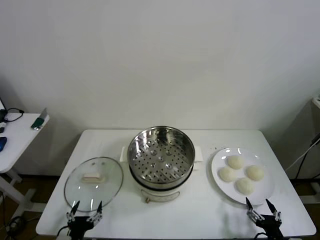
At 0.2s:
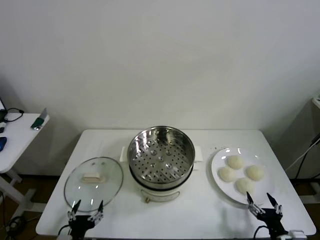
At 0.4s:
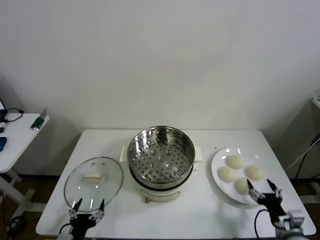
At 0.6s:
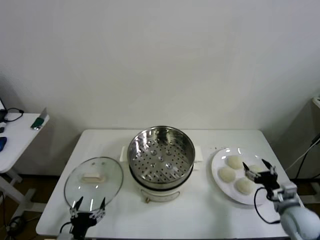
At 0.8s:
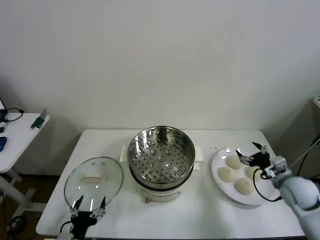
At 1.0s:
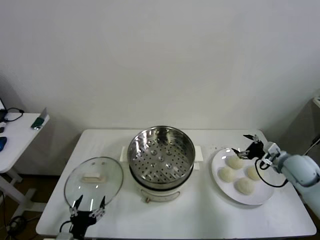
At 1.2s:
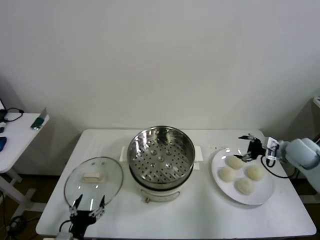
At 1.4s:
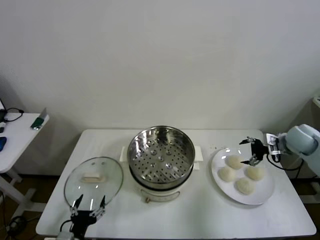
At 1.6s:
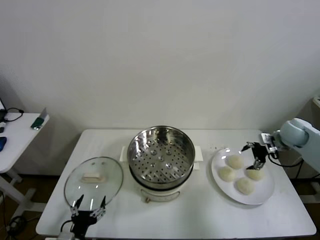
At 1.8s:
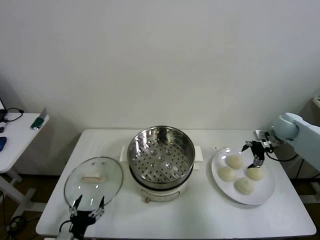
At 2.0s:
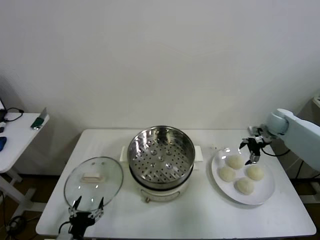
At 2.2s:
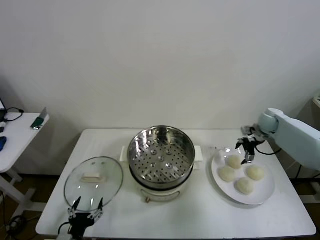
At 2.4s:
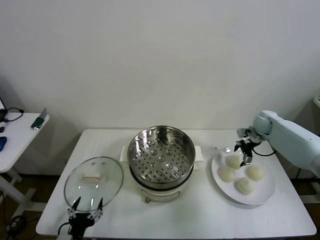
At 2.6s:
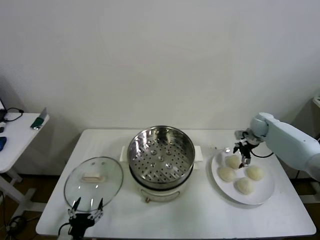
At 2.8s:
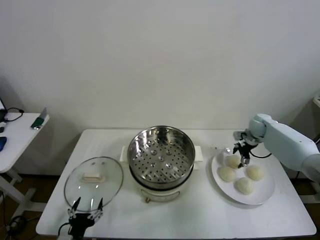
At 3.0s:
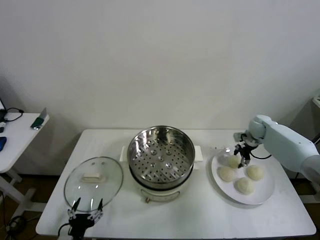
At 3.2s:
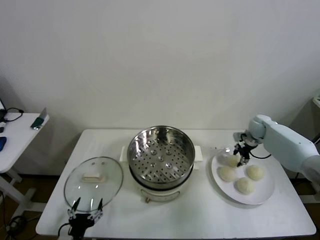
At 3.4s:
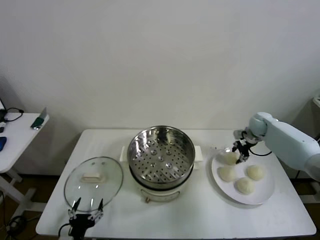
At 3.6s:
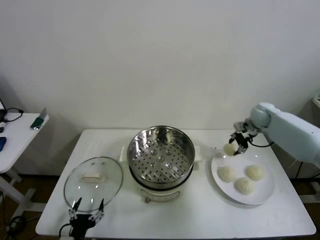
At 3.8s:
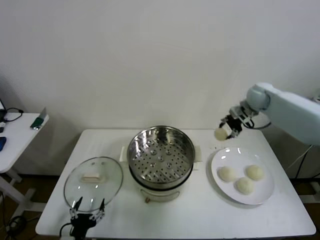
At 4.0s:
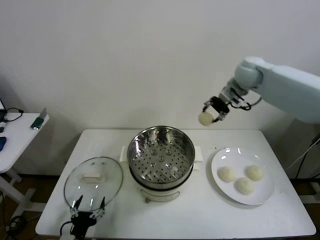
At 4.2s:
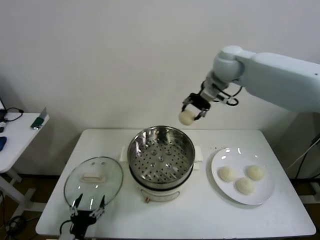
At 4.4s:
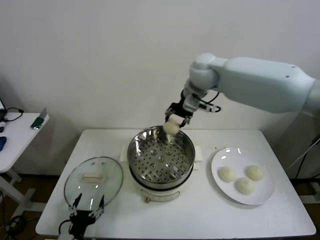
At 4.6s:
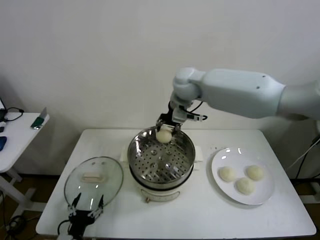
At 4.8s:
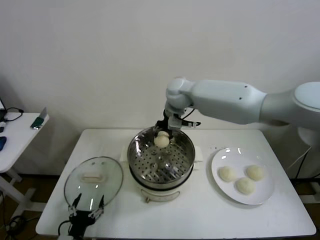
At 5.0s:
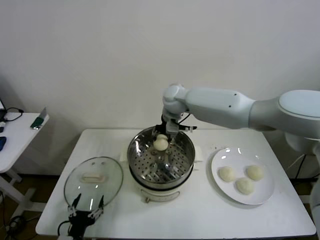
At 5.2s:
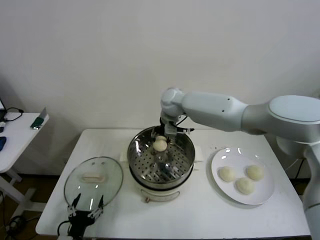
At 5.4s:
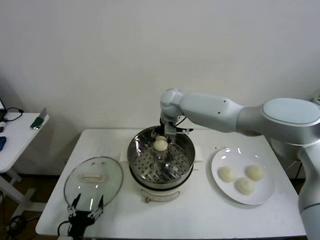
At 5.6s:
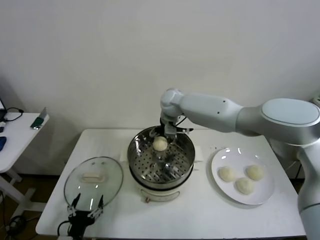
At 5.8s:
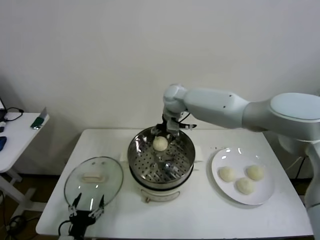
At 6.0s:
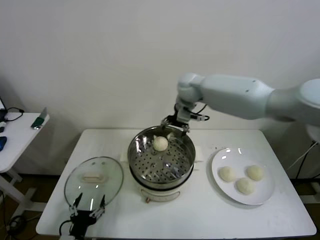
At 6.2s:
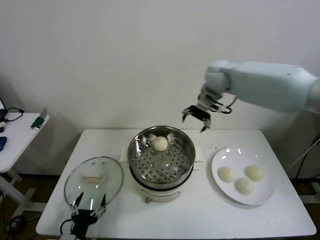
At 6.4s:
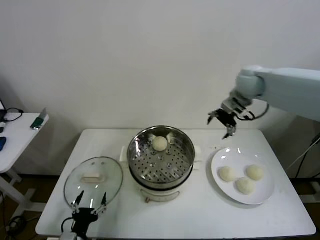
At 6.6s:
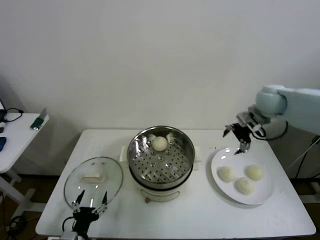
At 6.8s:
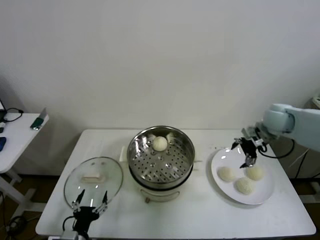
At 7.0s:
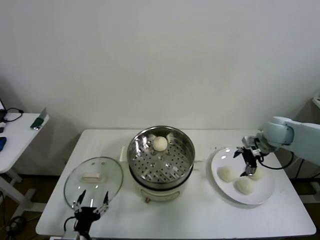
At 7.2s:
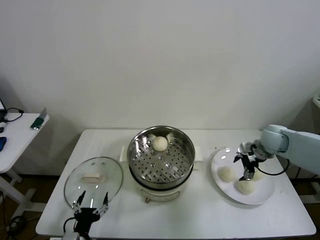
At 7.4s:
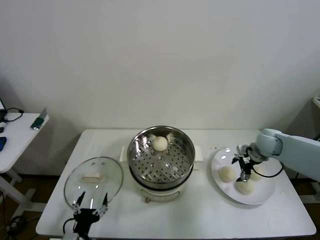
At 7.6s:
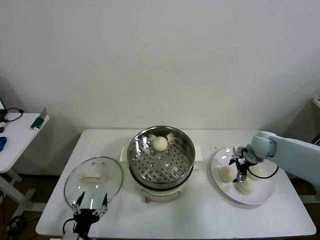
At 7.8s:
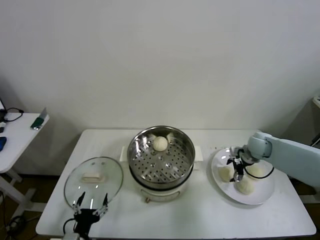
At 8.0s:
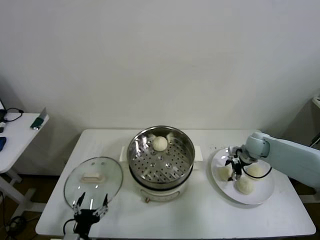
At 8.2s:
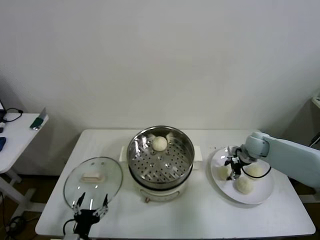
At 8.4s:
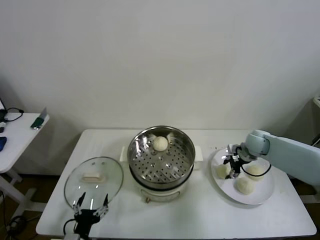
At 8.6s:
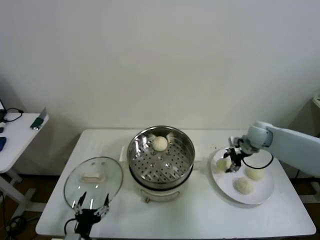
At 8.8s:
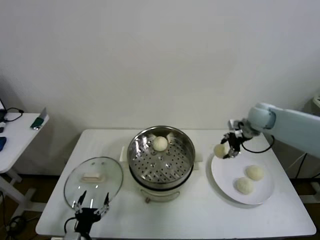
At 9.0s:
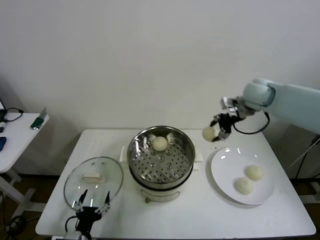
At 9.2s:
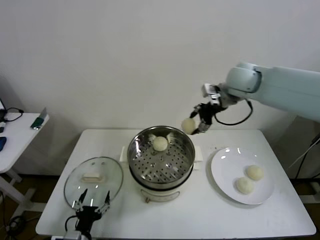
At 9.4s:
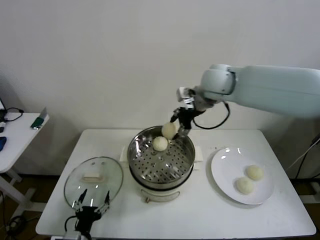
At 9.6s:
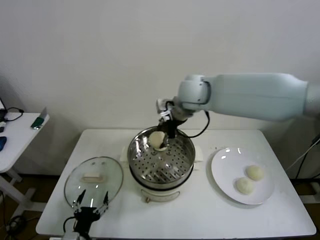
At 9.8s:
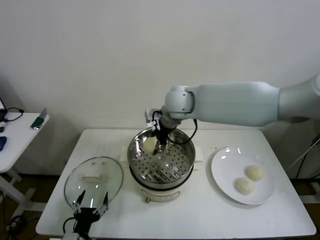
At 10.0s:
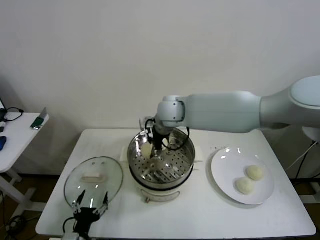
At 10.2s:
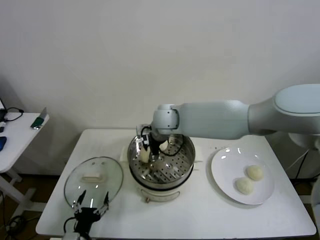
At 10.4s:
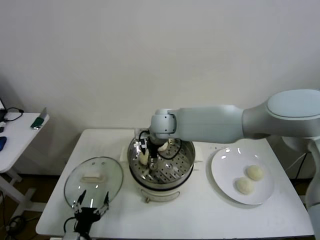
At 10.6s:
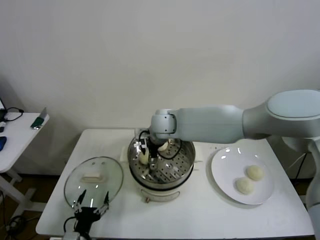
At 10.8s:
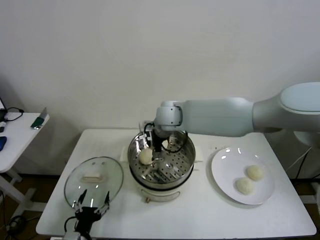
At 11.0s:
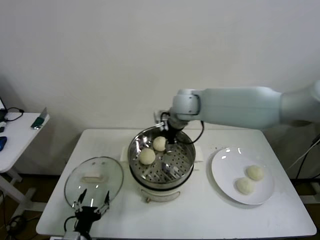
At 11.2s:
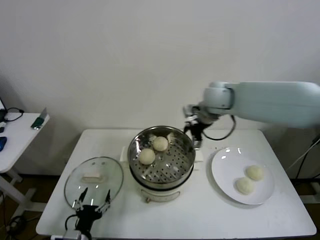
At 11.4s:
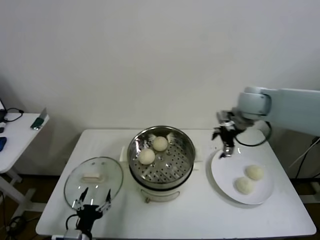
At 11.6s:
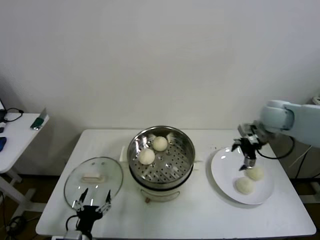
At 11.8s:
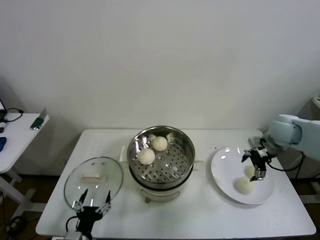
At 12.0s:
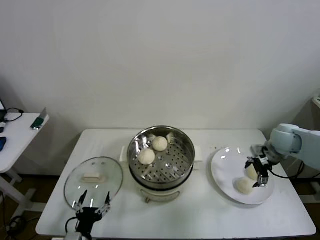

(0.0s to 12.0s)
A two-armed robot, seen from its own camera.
Step, 0.0s - 3.0s: Grasp the baozi in the plate with right gripper.
Step, 3.2s - 5.8s: Place the baozi on the steamer with right gripper.
Step, 6.2s - 8.2s: Grasp the baozi in the plate with right gripper.
Step, 8.4s - 10.8s: Place the baozi on the steamer with right gripper.
1.6s - 3.0s: The right gripper shifts approximately 10 cm forward, downward and to the left, and closes up.
3.0s - 4.4s: The right gripper moves to the left and upward, approximately 40 cm.
4.4s - 6.0s: The right gripper travels downward and back again, roughly 10 cm each way, and opens up.
6.0s - 7.6s: The right gripper is displaced to the right and downward by some 35 cm.
7.6s - 9.0s: The right gripper goes some 25 cm upward and to the left, and closes its fingers.
9.0s - 10.4s: The right gripper moves to the left and downward, roughly 30 cm.
10.4s - 12.0s: The right gripper shifts roughly 40 cm to the right, and opens.

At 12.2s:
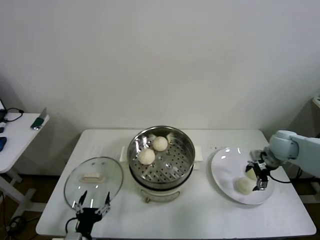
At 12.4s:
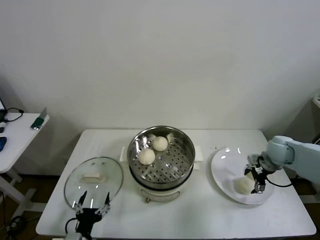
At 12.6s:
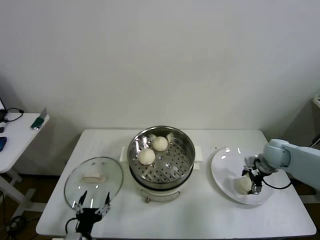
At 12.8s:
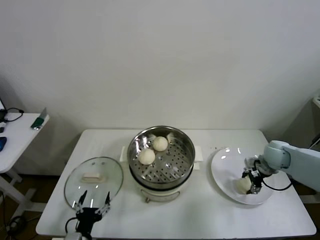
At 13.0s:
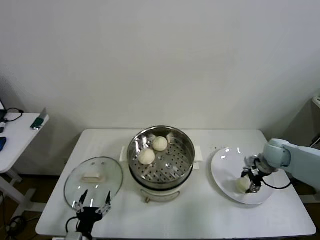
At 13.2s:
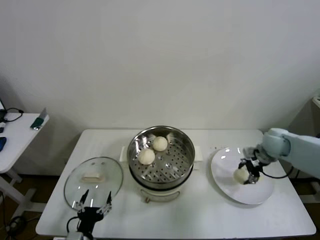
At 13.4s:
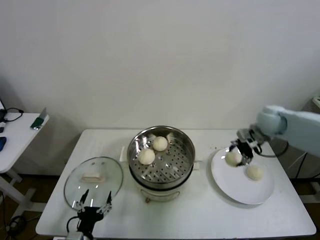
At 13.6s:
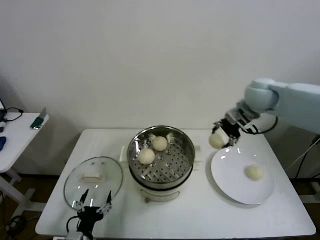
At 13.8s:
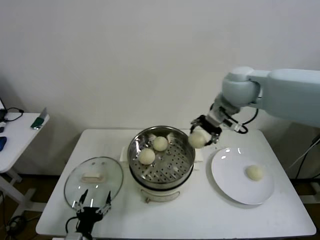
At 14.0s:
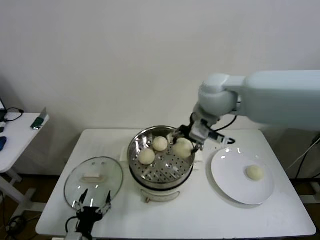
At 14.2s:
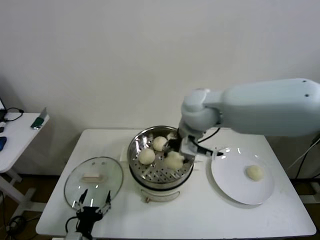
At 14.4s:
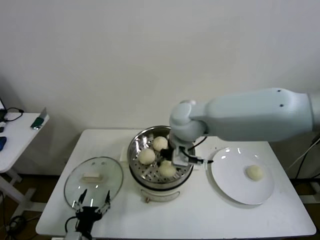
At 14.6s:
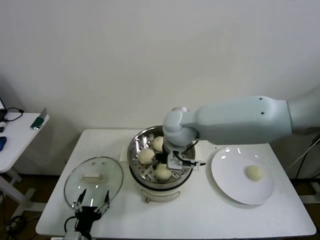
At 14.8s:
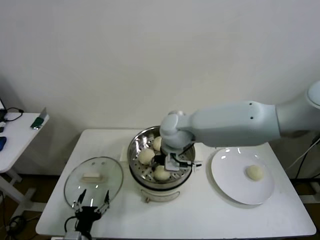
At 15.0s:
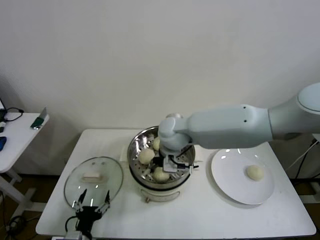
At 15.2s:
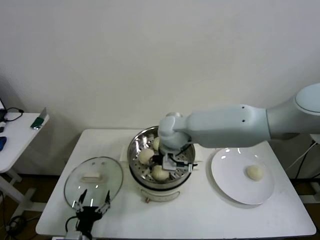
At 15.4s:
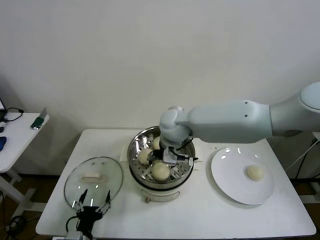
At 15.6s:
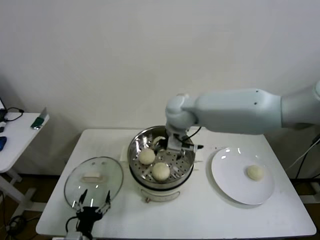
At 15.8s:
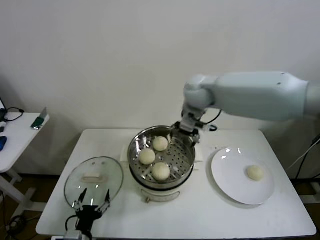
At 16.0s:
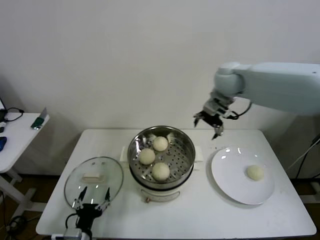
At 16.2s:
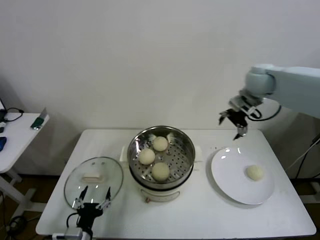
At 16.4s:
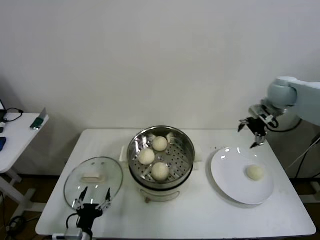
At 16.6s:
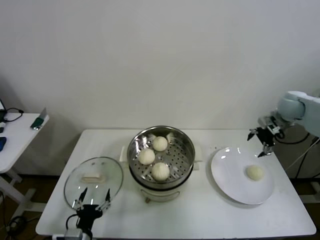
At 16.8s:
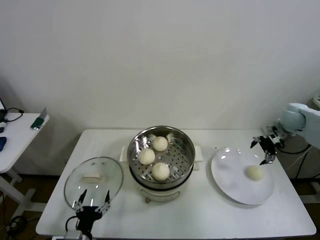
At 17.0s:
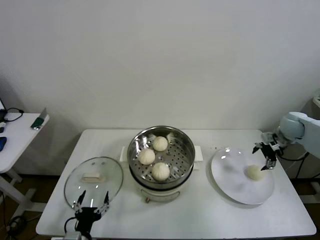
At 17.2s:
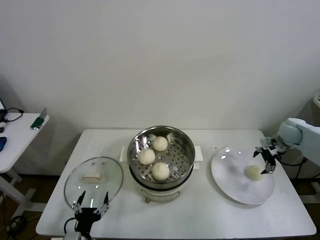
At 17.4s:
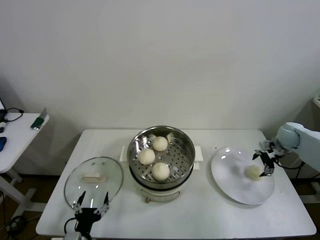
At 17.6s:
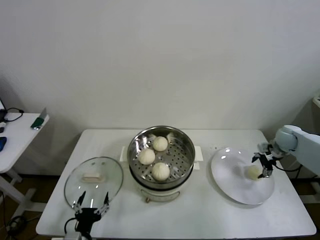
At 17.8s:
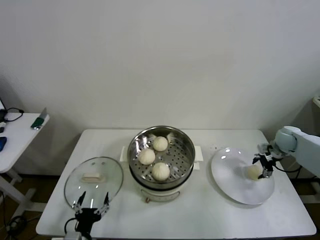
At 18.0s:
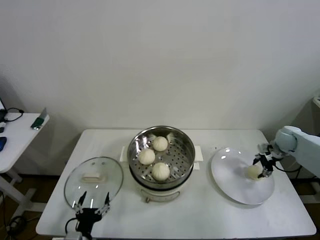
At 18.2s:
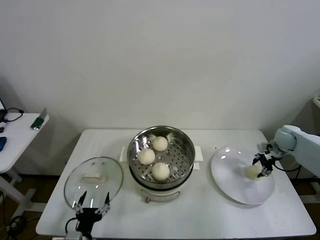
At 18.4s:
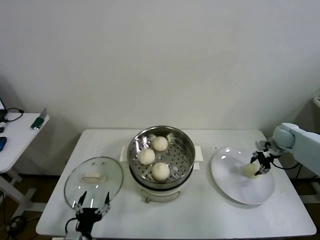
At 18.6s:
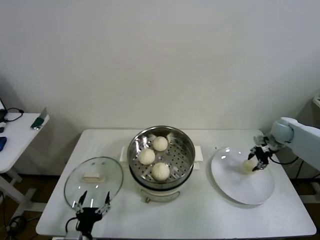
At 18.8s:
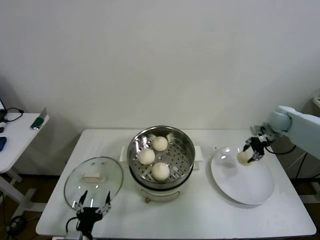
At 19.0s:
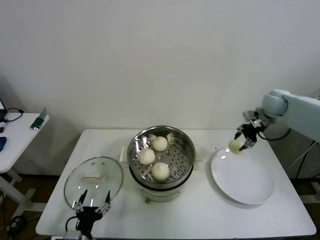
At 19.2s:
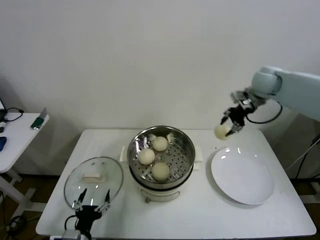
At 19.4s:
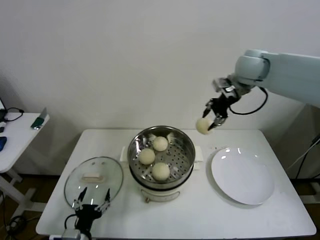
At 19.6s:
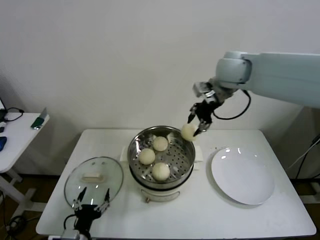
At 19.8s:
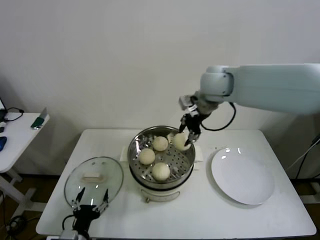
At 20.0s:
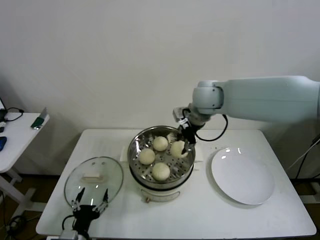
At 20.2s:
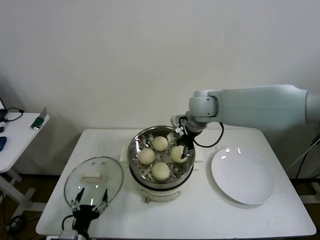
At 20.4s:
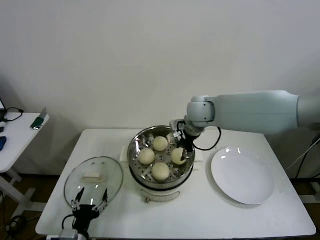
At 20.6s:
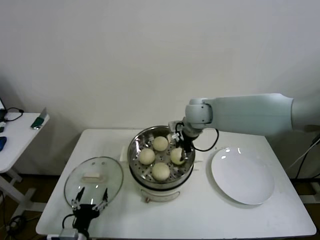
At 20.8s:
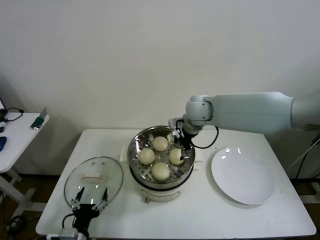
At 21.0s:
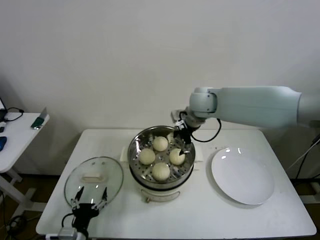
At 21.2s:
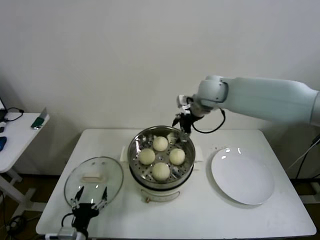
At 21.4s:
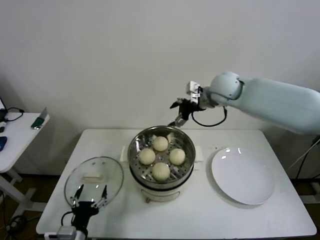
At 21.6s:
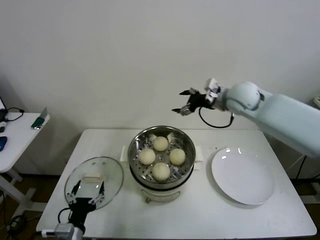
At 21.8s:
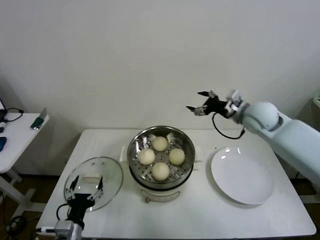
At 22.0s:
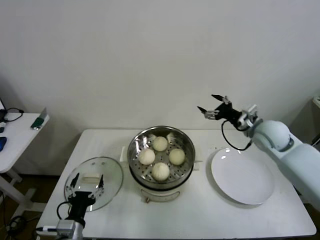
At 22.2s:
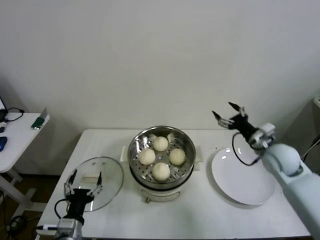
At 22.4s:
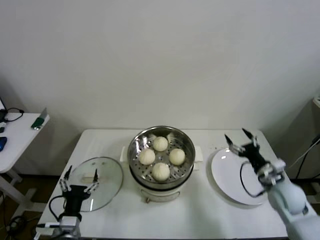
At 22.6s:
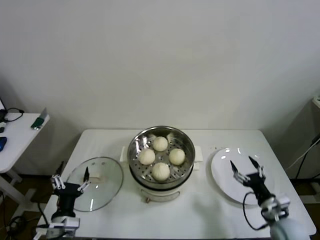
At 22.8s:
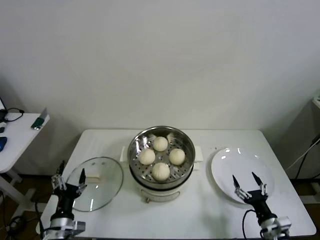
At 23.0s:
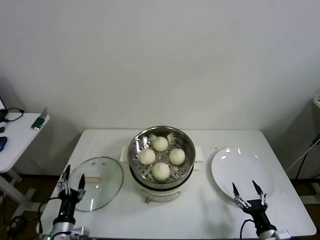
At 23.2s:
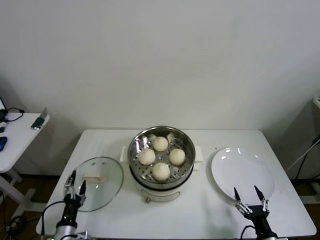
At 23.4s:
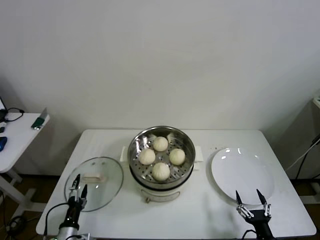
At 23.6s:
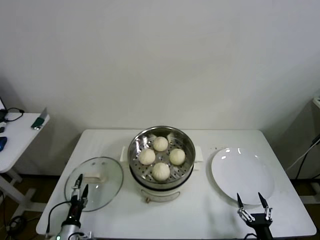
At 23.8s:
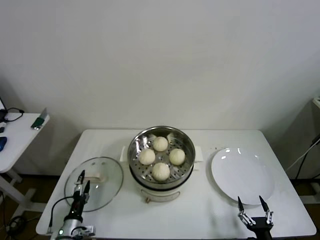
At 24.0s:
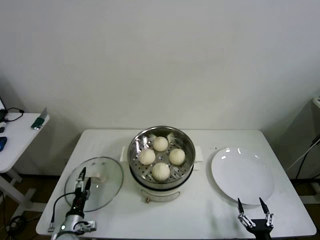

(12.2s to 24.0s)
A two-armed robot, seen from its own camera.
Step, 13.2s - 15.4s: Place the baozi on the steamer with right gripper.
Step, 15.6s - 18.2s: Grasp the baozi in the plate with right gripper.
Step, 18.4s - 21.0s: Place the baozi on the steamer with right gripper.
12.2s - 13.6s: The right gripper is displaced upward and to the left by about 25 cm, and closes its fingers.
13.6s - 15.2s: The right gripper travels to the left and downward by some 25 cm.
15.2s - 16.6s: The right gripper heads to the right, covering some 40 cm.
16.6s - 18.2s: The right gripper shifts some 15 cm downward, and closes.
18.2s - 19.6s: The right gripper is displaced to the left and upward by roughly 40 cm.
19.6s - 21.0s: The right gripper moves downward and to the left, roughly 15 cm, and opens.
21.0s - 22.6s: The right gripper travels downward, backward and to the right by roughly 50 cm.
22.6s - 24.0s: The left gripper goes roughly 15 cm downward. The right gripper heads backward and downward, covering about 20 cm.
